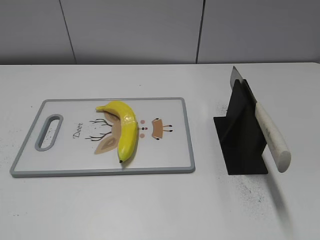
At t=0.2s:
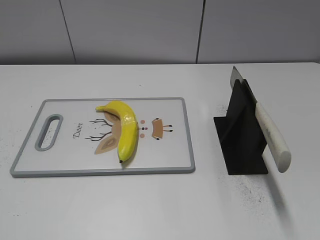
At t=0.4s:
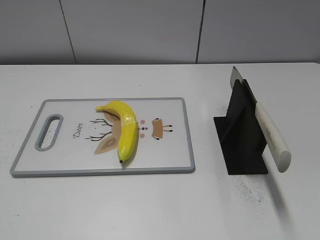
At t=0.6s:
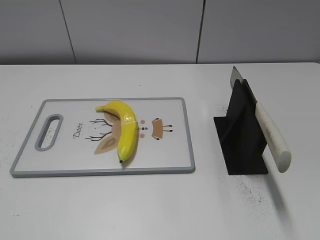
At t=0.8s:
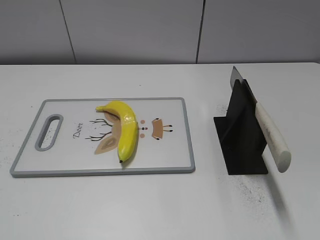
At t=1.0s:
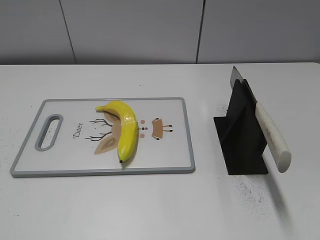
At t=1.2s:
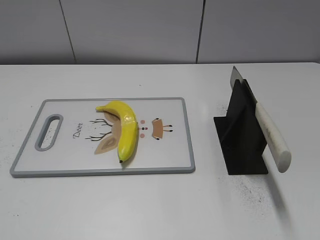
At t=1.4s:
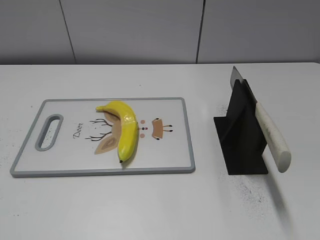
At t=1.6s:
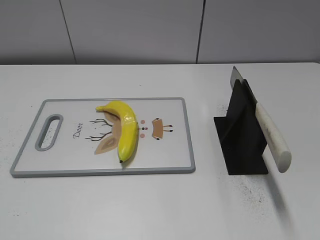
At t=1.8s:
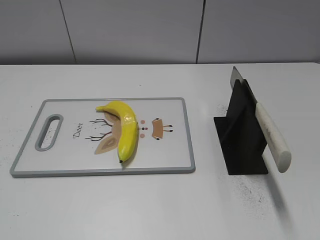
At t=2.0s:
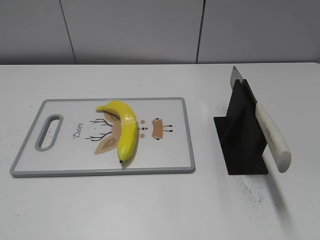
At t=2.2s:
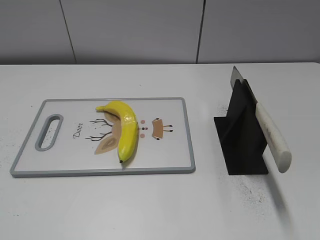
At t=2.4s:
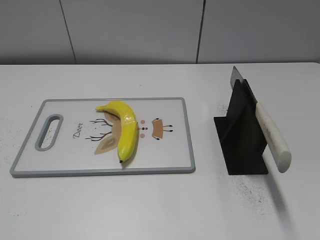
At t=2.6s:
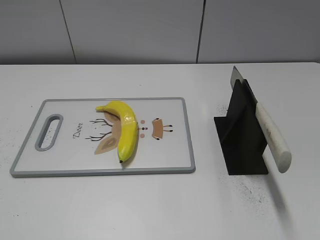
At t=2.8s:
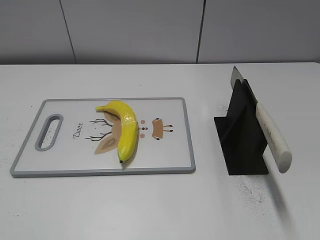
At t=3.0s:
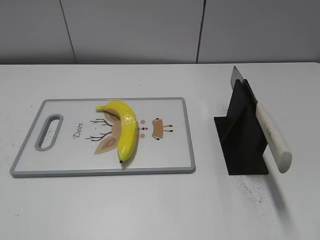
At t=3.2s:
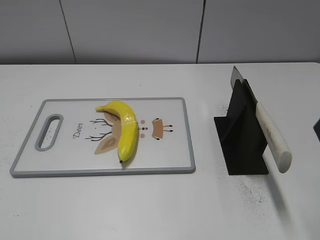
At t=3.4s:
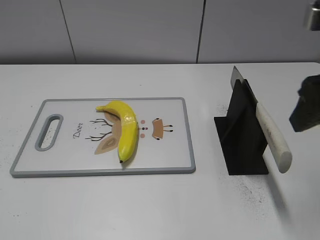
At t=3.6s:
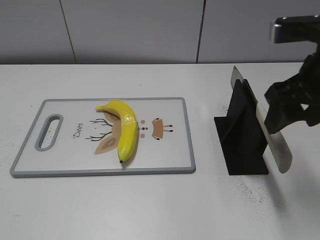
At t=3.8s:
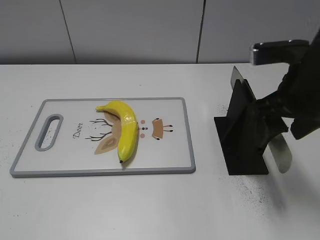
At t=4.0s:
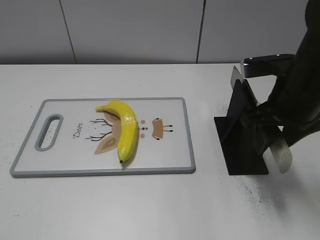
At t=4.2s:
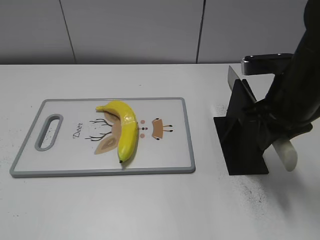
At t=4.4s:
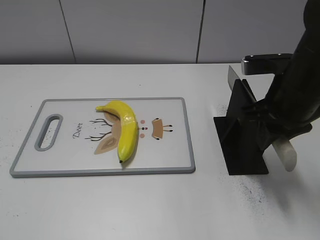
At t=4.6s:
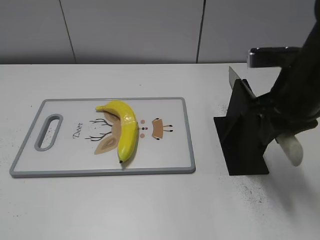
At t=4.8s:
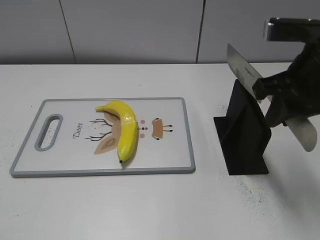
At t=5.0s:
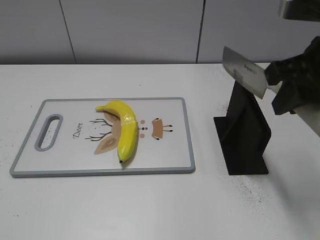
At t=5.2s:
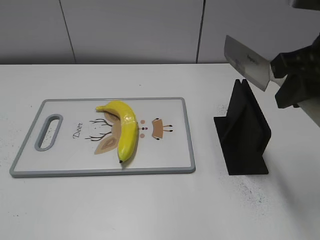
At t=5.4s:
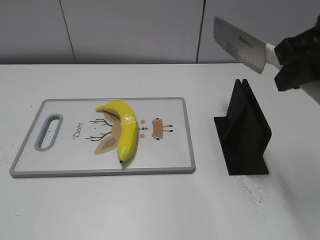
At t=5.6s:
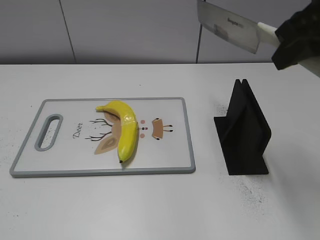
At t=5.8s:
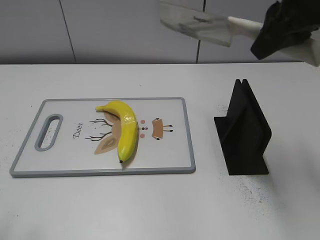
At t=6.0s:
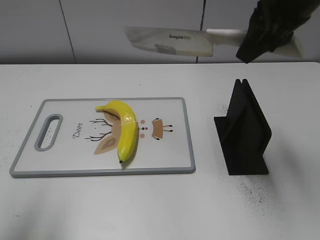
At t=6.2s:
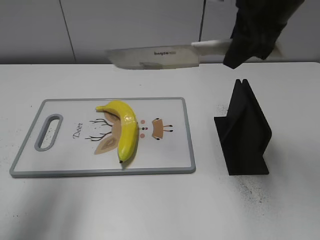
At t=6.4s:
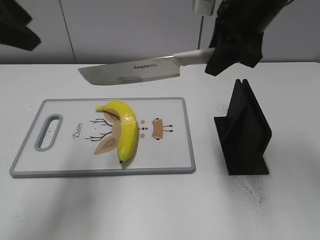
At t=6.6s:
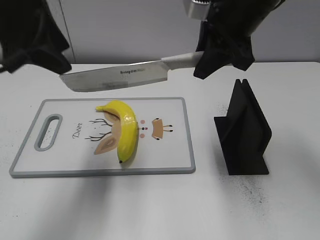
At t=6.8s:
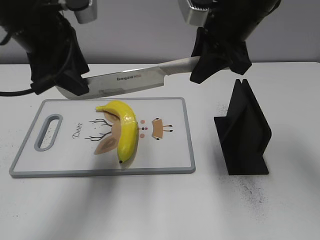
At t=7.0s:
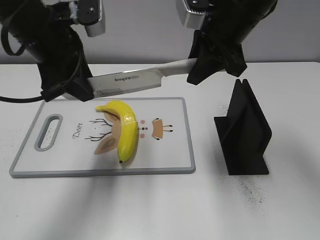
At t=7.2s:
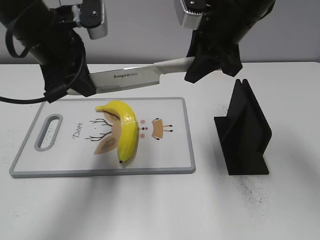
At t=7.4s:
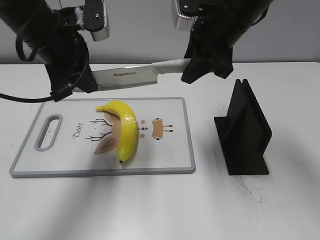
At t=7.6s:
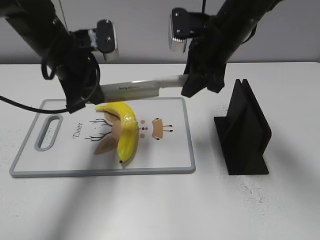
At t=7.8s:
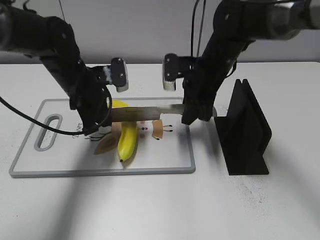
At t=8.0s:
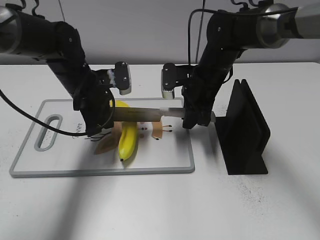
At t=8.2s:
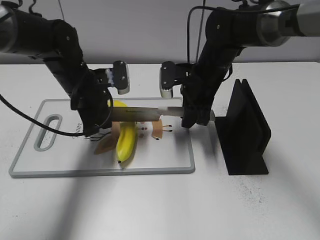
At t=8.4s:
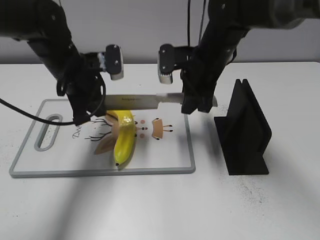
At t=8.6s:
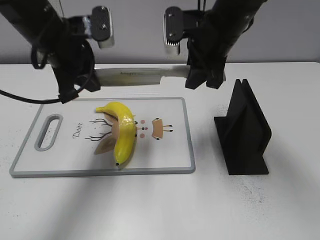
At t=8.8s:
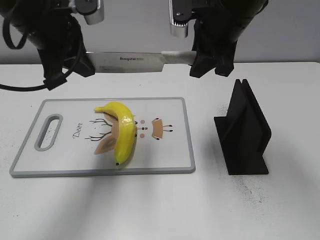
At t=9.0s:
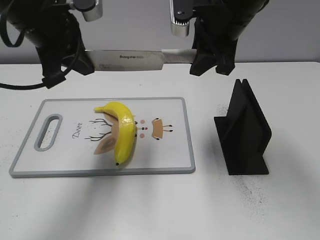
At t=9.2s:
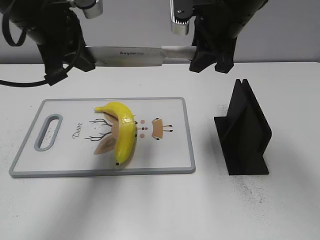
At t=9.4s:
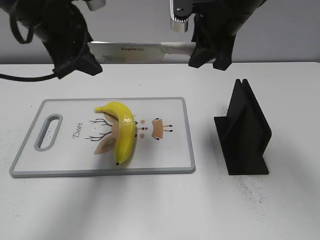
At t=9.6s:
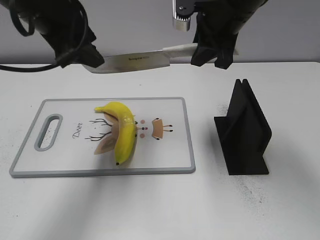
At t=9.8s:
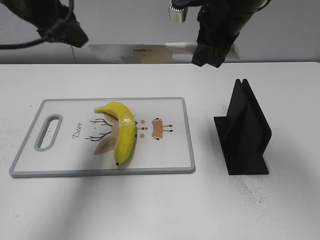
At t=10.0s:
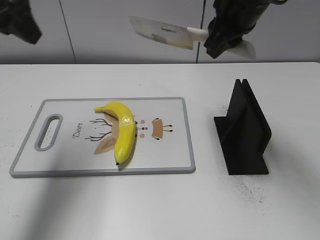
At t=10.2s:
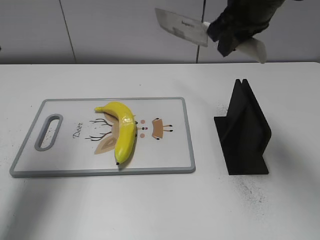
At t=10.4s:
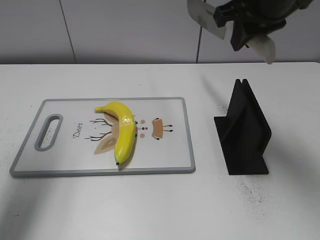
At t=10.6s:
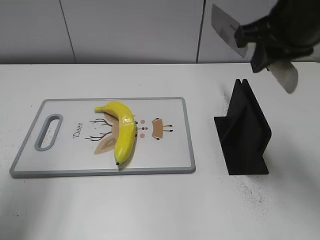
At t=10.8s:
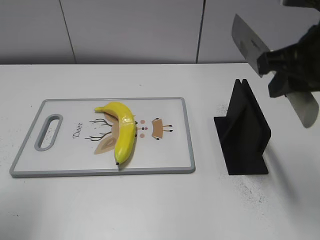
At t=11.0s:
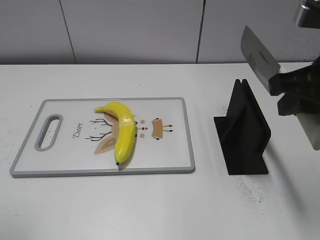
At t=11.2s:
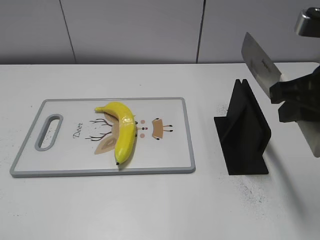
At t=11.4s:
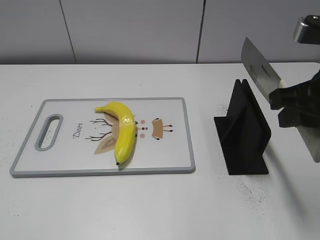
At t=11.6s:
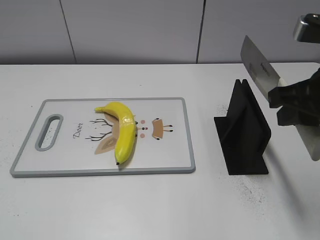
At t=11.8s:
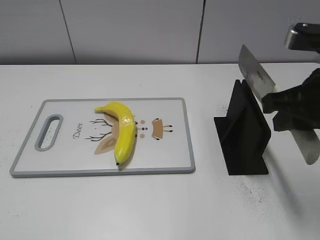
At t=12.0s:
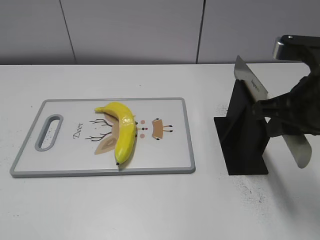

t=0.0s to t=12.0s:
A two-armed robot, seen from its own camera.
Task of the whole recording: cut plastic banana.
Step, t=0.0s to t=5.4s: Grab the knife handle with your right hand.
Step, t=5.6s to t=9.0s: Lift the knife with your right hand.
Step, t=9.2s to t=10.0s: Cut the banana with your right hand.
Step, t=10.2s to t=11.6s: Lift the knife with your right hand.
t=3.0s to t=4.4s: The right gripper moves forward, downward and to the left, roughly 20 cm, and closes.
t=4.4s to t=6.0s: The left gripper shifts approximately 20 cm forward and upward, while the right gripper moves upward, some 15 cm.
t=6.0s to t=7.6s: The left gripper moves forward, downward and to the right, approximately 30 cm, and closes its fingers, while the right gripper shifts approximately 15 cm downward, forward and to the left.
t=7.6s to t=9.0s: The two grippers go roughly 5 cm upward.
t=9.0s to t=10.4s: The right gripper ends up roughly 5 cm from where it was; the left gripper moves to the left and upward, about 15 cm, and opens its fingers.
t=10.4s to t=12.0s: The right gripper travels backward, downward and to the right by about 15 cm. The left gripper goes about 30 cm backward.

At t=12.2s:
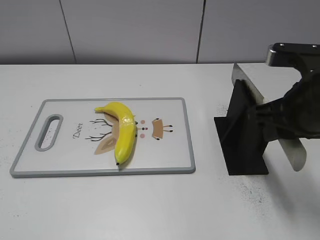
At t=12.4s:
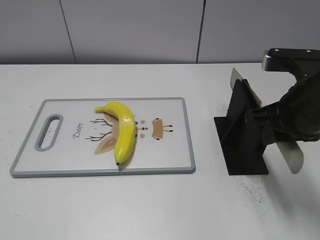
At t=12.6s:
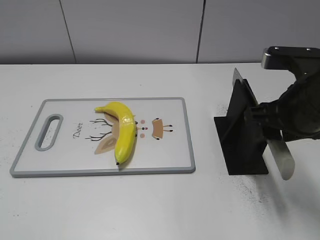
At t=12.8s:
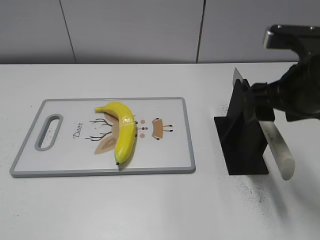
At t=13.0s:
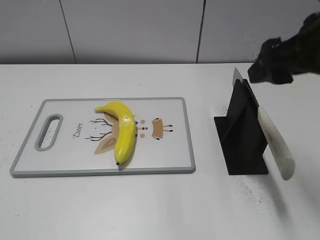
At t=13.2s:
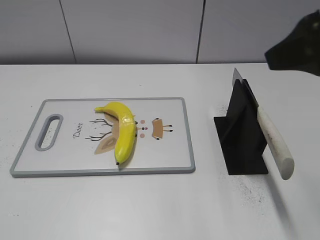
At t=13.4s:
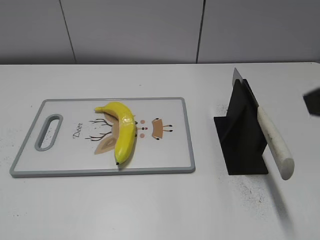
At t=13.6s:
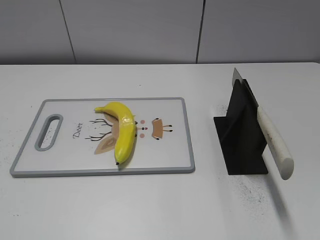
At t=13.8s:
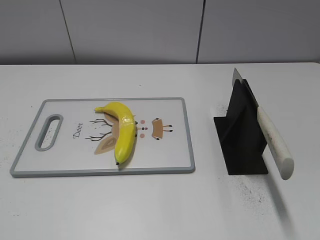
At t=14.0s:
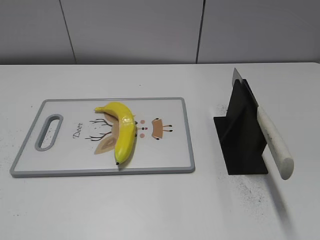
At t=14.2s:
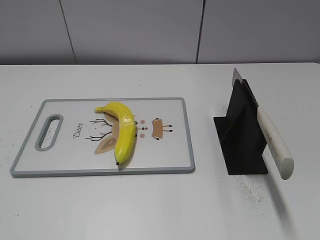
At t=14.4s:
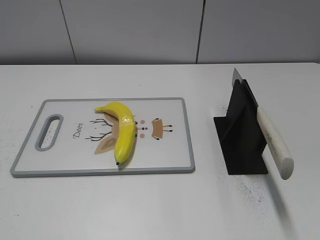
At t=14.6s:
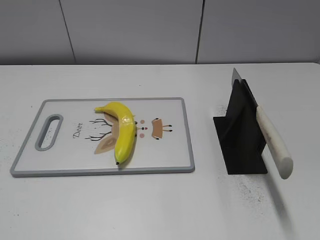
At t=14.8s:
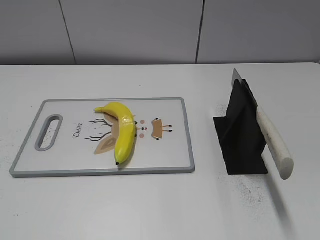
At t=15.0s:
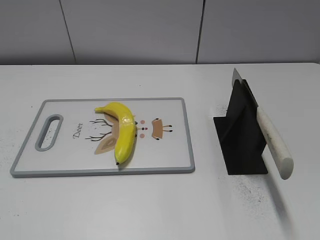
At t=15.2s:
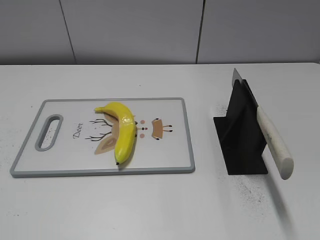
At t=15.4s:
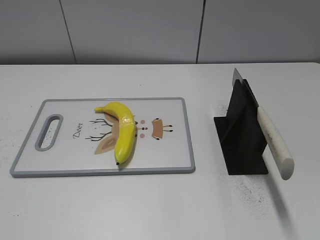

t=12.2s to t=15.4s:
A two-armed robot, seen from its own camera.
Task of the whole recording: cut plastic banana.
Step, t=12.2s to t=15.4s: Place the knife on the storage rack with your right hand.
t=12.2s to t=13.8s: The right gripper is displaced backward and to the right by roughly 20 cm, and opens.
